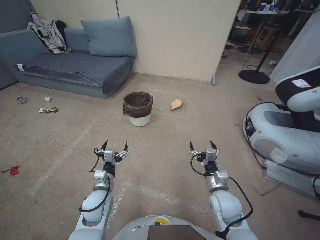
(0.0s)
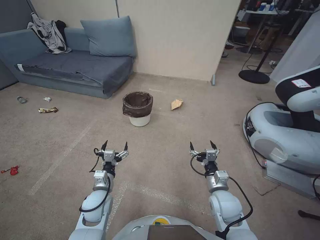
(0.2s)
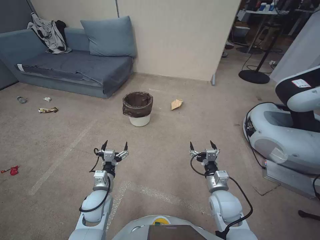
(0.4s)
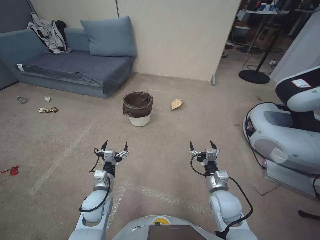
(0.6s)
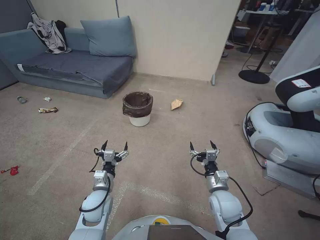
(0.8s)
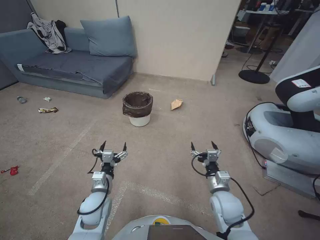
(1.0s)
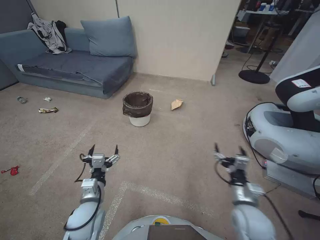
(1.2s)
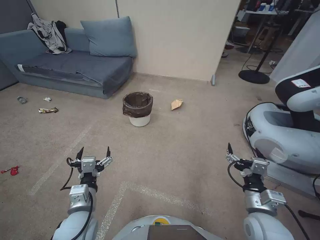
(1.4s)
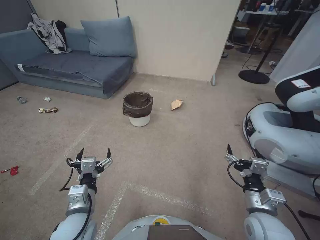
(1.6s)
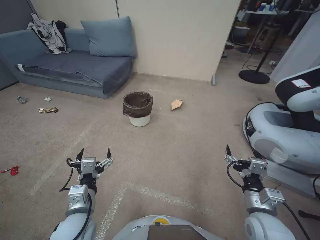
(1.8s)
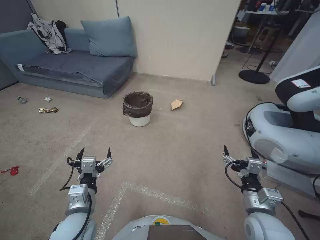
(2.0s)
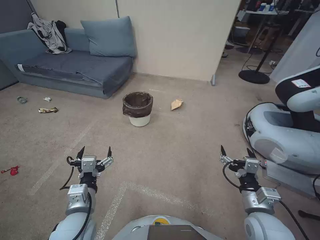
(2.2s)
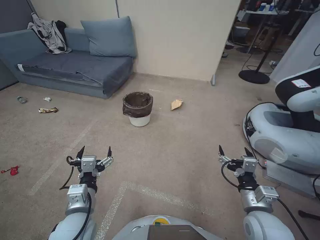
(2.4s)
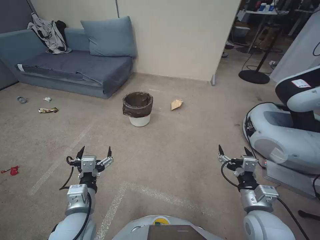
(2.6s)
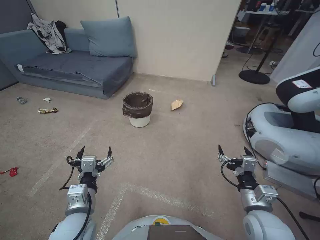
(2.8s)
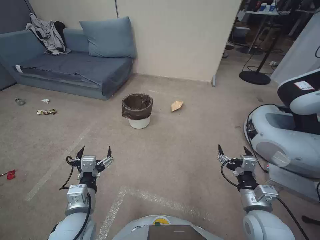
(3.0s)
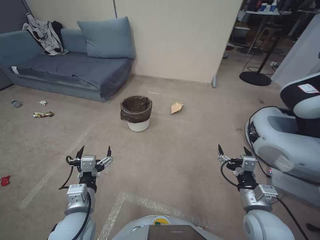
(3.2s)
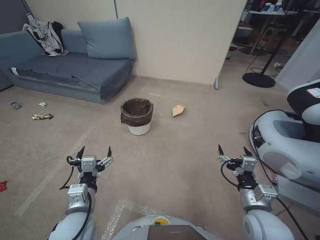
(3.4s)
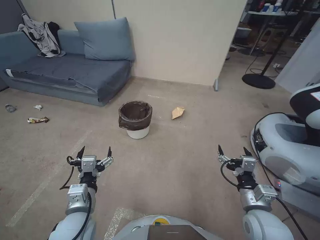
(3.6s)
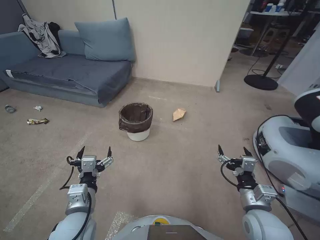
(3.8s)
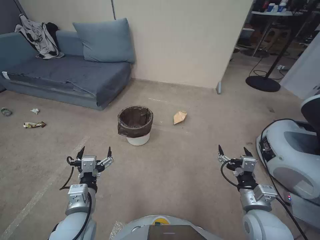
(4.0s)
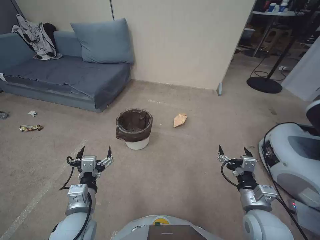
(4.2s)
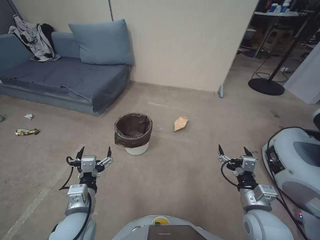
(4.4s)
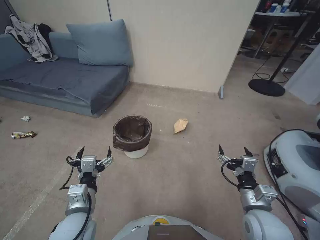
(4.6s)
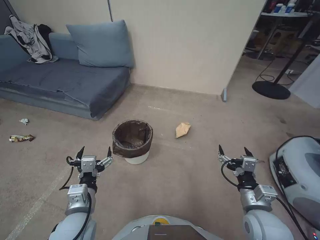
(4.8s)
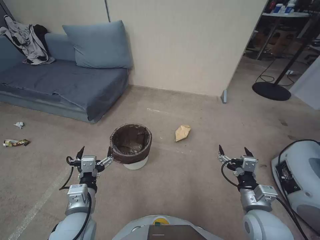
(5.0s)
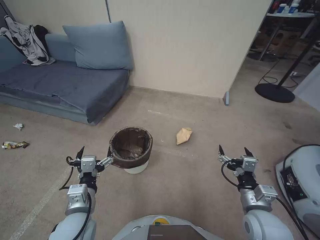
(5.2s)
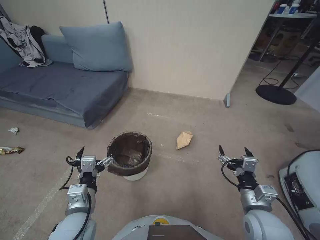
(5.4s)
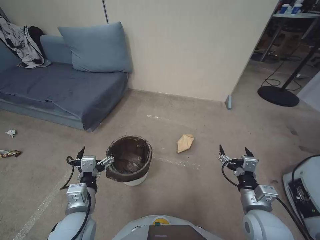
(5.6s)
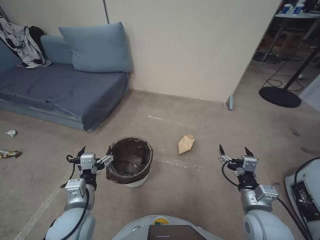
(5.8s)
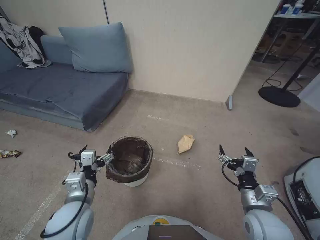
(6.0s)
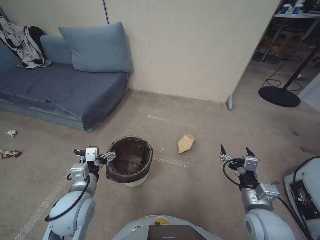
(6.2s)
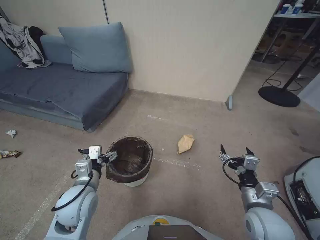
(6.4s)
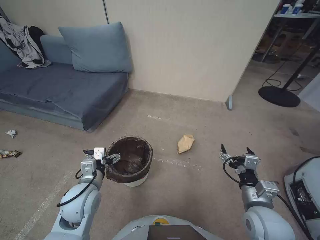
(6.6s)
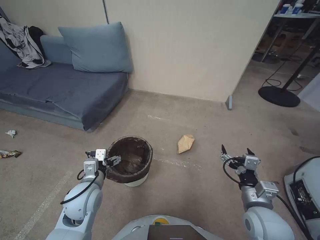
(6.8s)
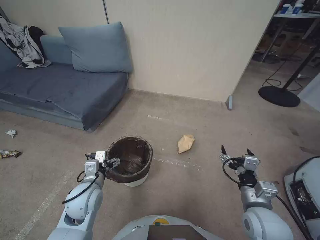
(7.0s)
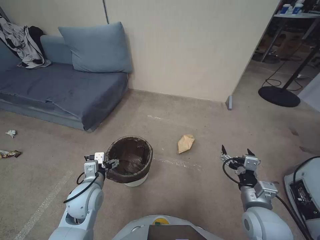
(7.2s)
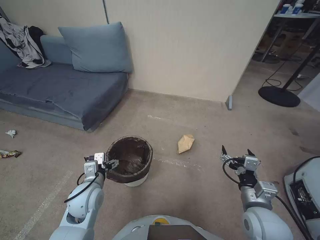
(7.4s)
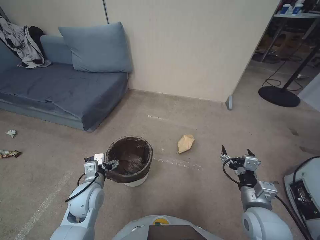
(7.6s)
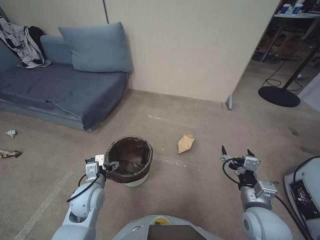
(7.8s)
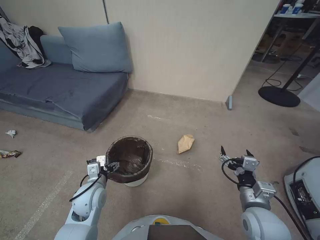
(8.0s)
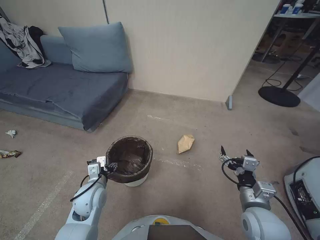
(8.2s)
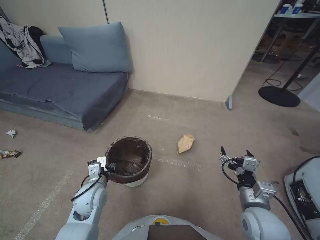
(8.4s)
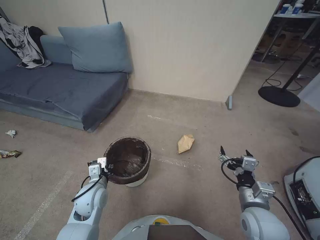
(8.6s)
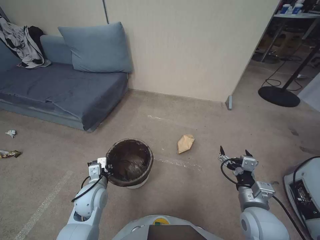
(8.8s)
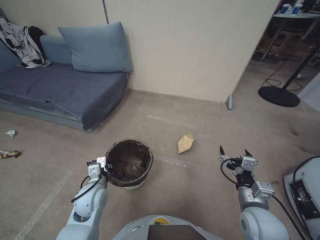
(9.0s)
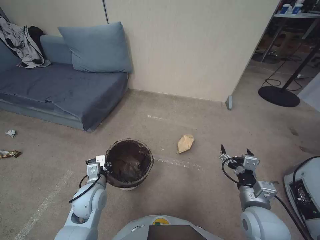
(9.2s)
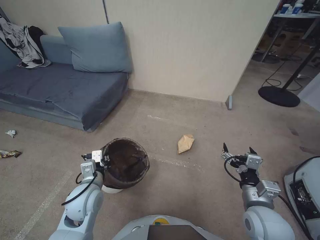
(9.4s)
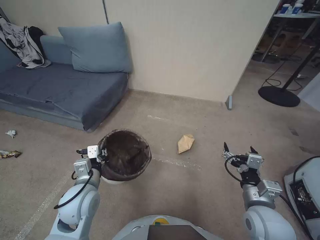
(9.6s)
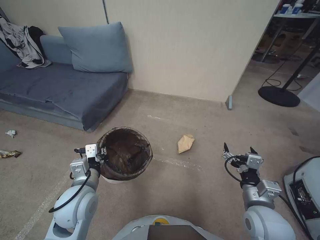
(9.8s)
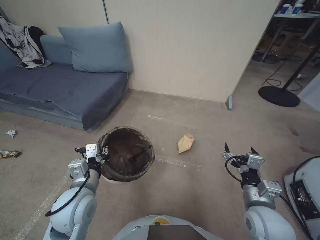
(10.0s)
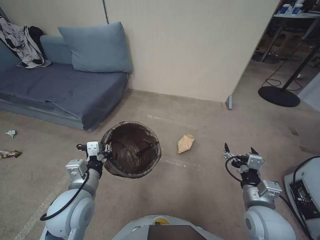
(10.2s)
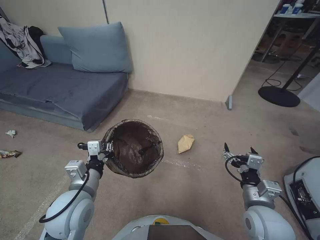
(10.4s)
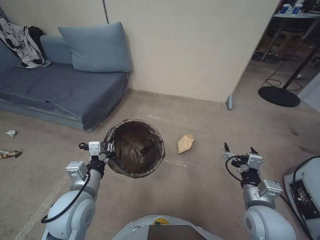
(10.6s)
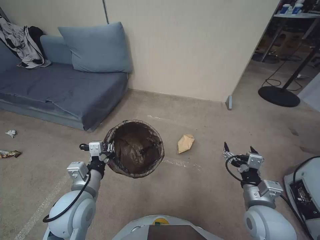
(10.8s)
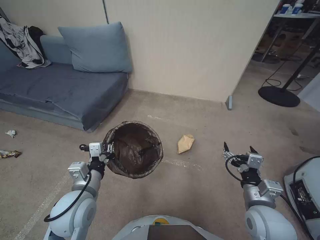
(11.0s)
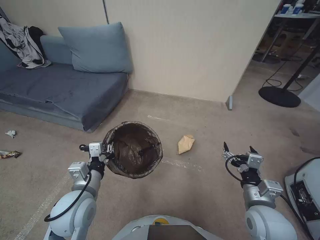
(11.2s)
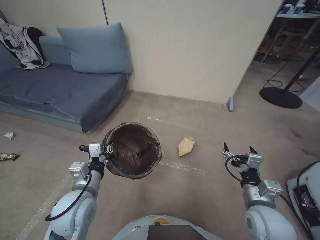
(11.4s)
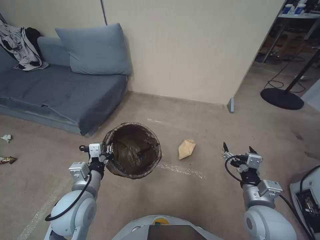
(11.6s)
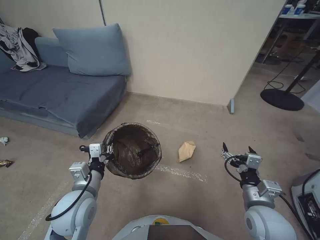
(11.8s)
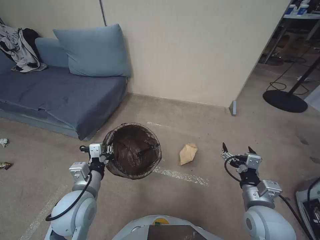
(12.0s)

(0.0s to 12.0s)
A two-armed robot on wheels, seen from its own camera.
Task of the whole recording: Pick up the trash bin, then pick up the garbage from the floor and place it into the trash bin.
1.6s - 3.0s: The grippers make only small movements.
6.0s - 7.6s: The left gripper is displaced forward by some 5 cm.
7.6s - 9.0s: The left gripper closes its fingers.
9.0s - 10.4s: The left gripper travels upward and backward by about 10 cm.
10.4s - 12.0s: The grippers stay close to where they were, moving slightly.

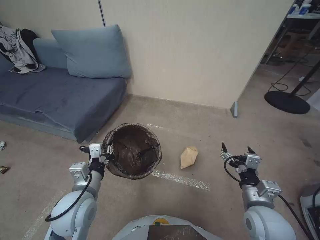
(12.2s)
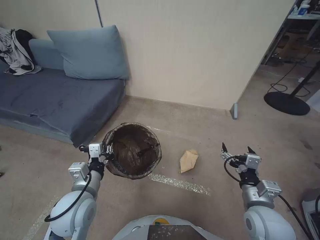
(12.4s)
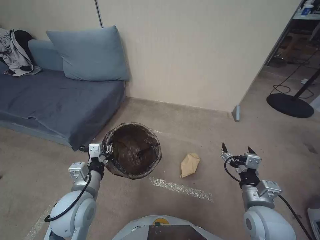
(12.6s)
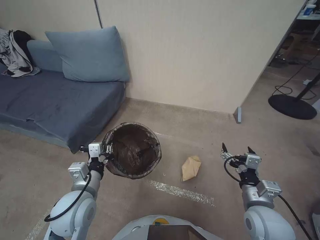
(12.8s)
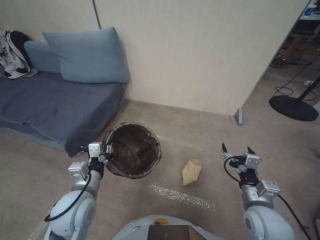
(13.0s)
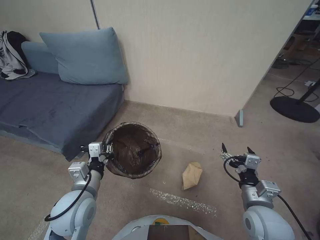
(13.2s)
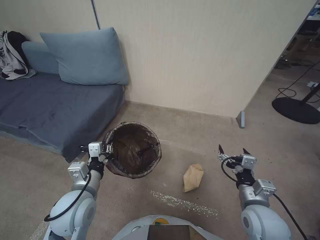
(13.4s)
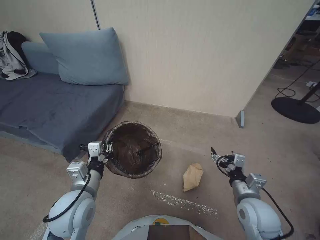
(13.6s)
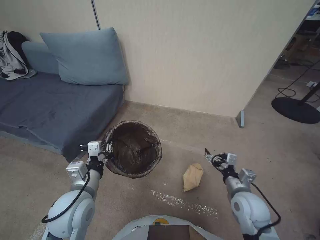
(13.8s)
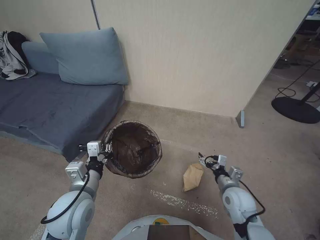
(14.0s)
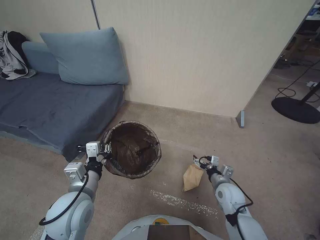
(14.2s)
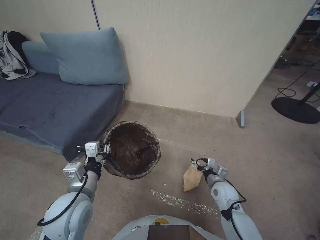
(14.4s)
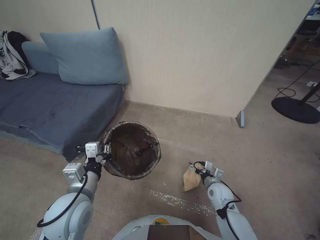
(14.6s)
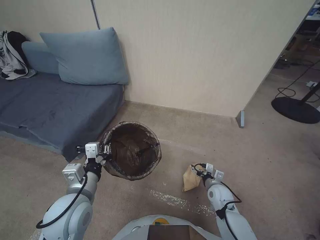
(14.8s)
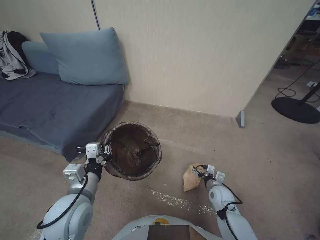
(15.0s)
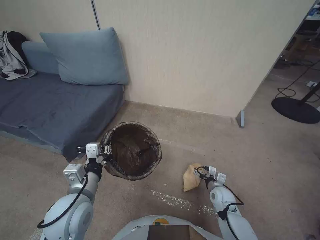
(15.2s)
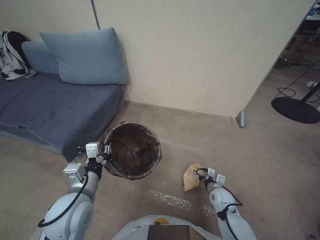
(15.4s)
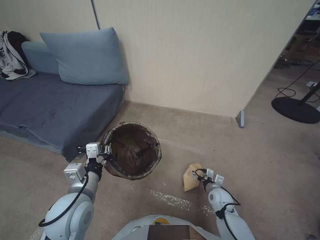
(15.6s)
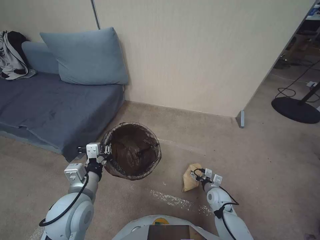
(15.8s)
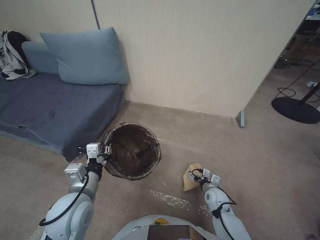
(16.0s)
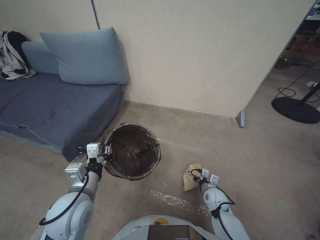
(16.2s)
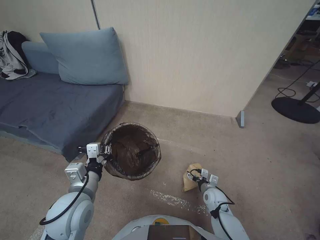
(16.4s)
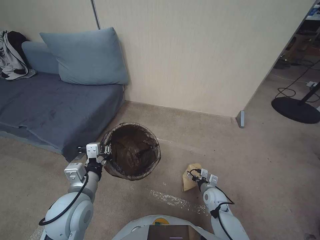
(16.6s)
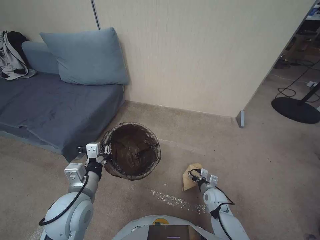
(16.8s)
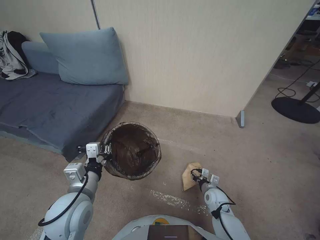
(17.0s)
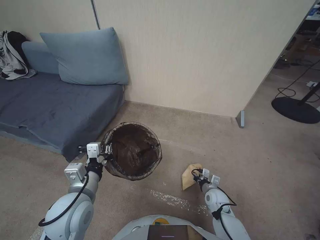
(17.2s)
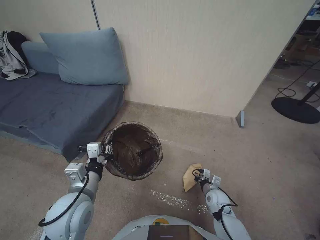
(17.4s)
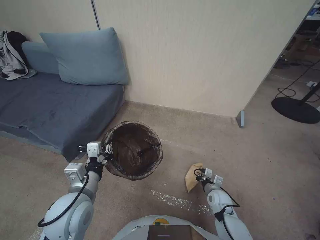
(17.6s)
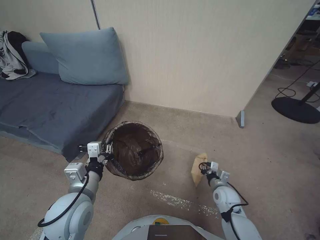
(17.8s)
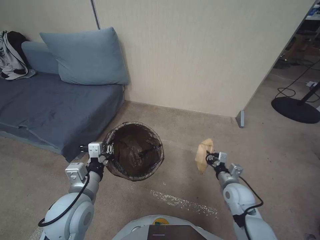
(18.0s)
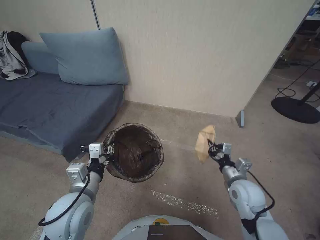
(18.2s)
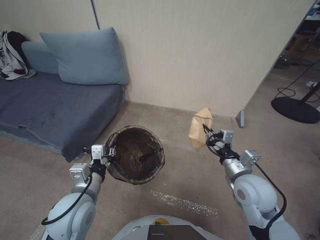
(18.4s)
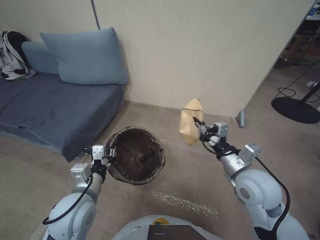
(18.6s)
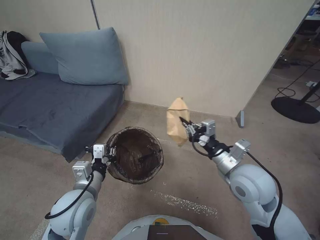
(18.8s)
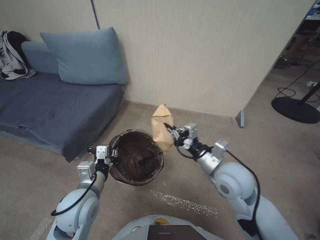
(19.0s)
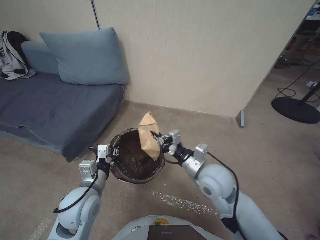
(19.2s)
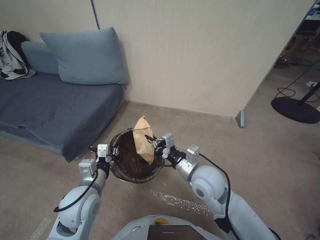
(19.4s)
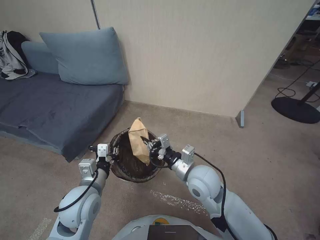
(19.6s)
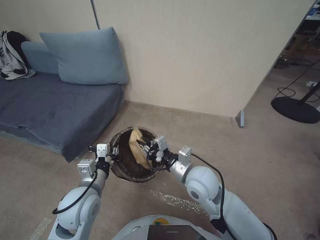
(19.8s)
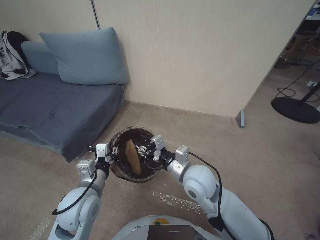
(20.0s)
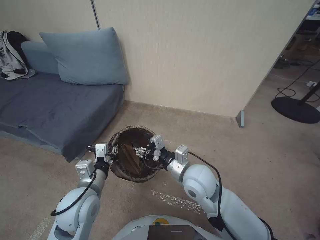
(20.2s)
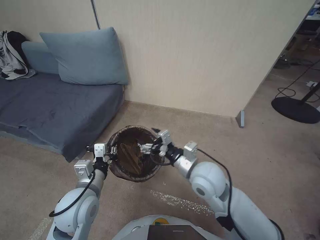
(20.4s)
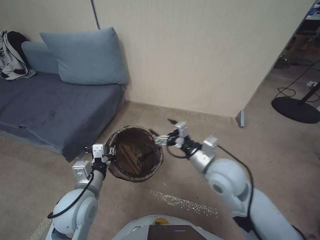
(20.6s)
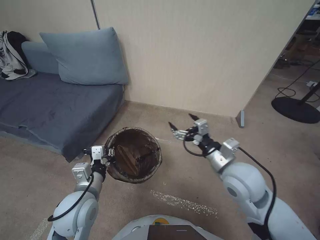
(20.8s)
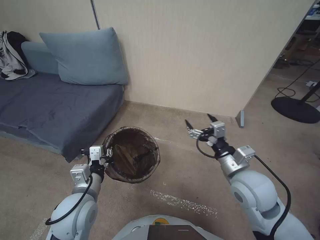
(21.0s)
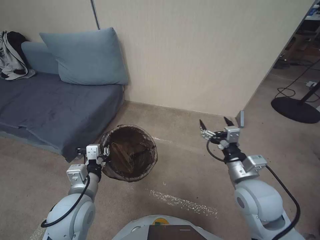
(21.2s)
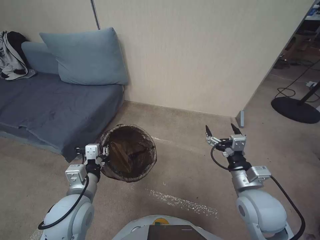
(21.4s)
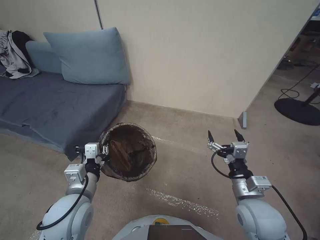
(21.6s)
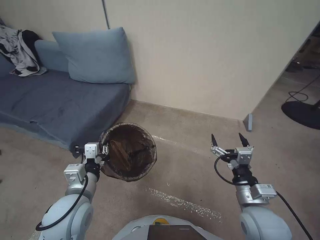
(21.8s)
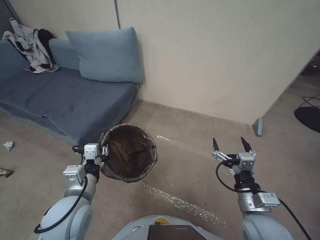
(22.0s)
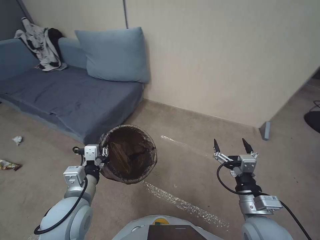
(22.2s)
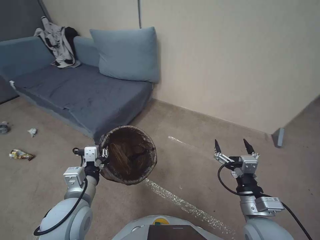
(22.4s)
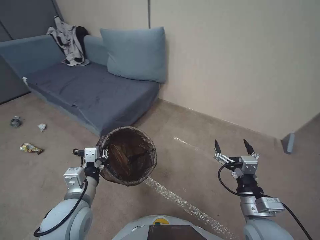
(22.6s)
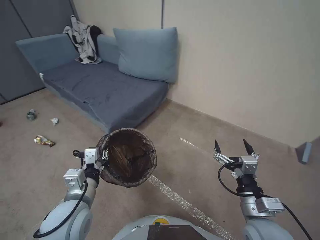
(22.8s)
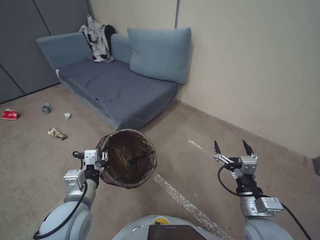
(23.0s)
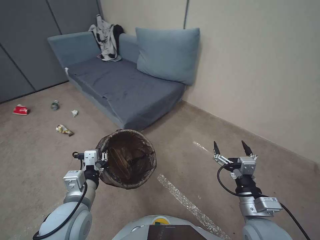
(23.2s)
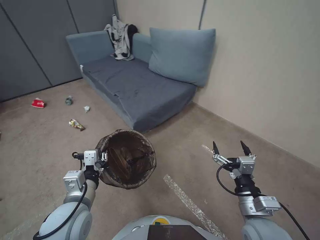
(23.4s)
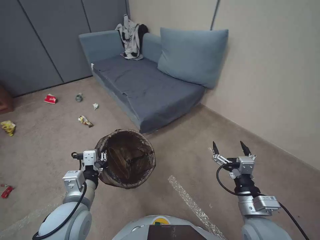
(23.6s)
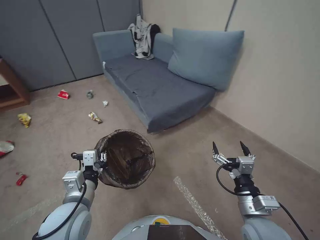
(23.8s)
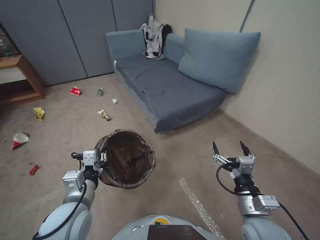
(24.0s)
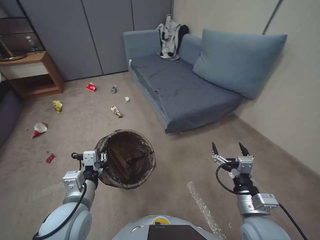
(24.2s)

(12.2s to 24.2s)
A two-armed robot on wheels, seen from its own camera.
Task of the whole recording: Pick up the trash bin, then pick up the garbage from the floor and place it into the trash bin.
12.2s - 13.8s: The right gripper ends up about 5 cm from where it was.
13.8s - 15.2s: The right gripper travels downward and forward by roughly 15 cm.
15.2s - 16.6s: The grippers stay close to where they were, moving slightly.
16.6s - 18.2s: The right gripper heads upward, covering about 15 cm, and closes.
18.2s - 19.8s: The right gripper moves to the left and upward, some 20 cm.
19.8s - 21.2s: The right gripper moves to the right, some 10 cm, and opens its fingers.
21.2s - 22.6s: The right gripper travels backward and downward by about 10 cm.
